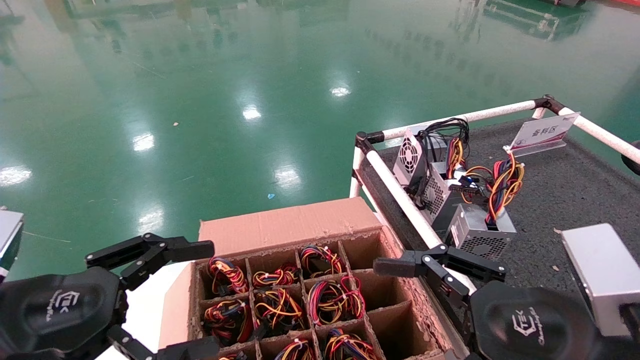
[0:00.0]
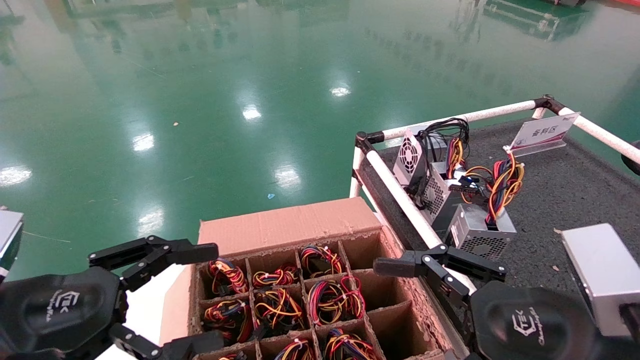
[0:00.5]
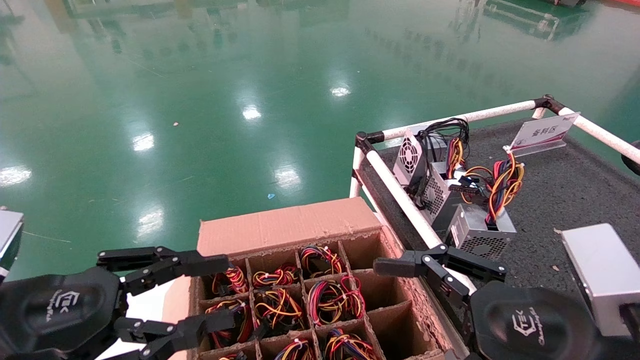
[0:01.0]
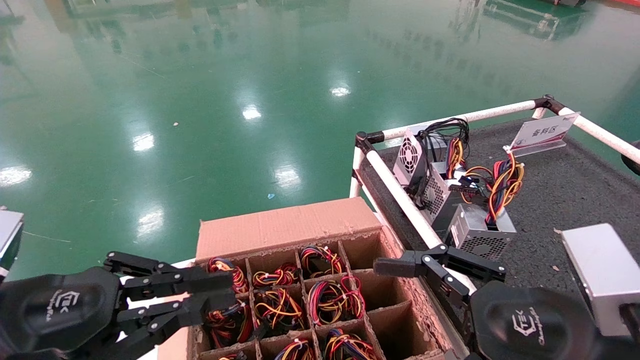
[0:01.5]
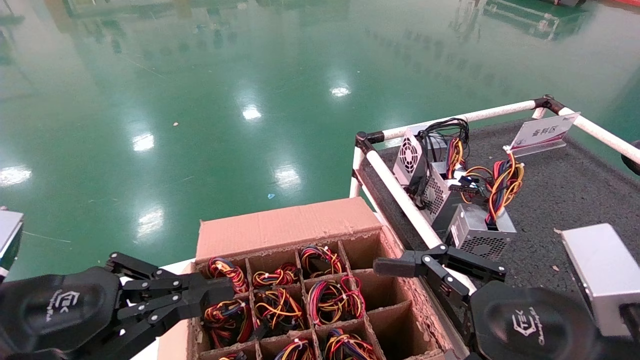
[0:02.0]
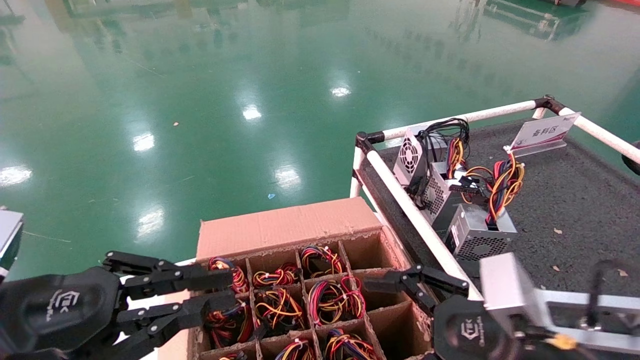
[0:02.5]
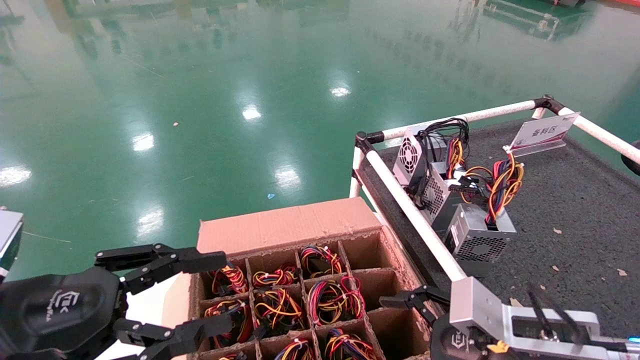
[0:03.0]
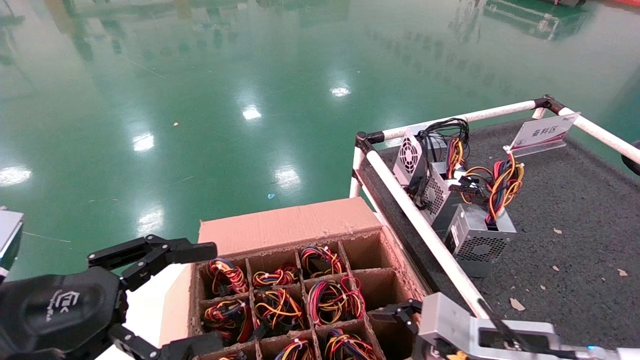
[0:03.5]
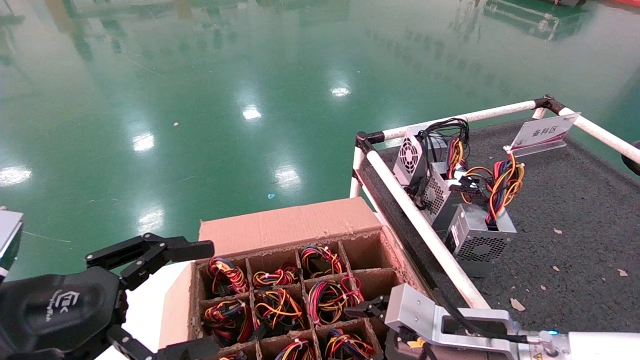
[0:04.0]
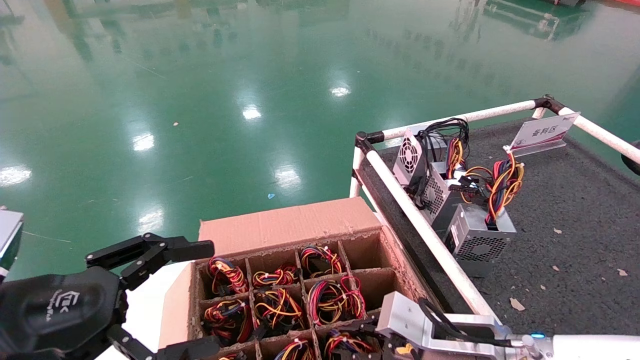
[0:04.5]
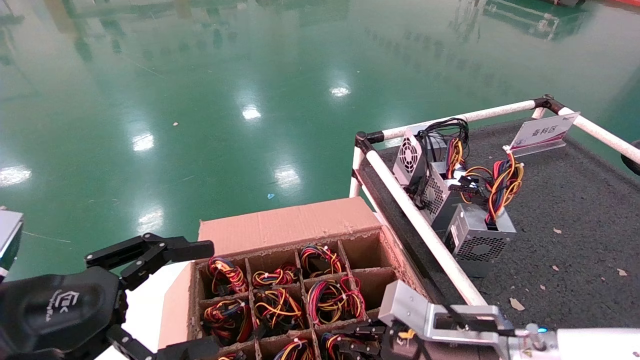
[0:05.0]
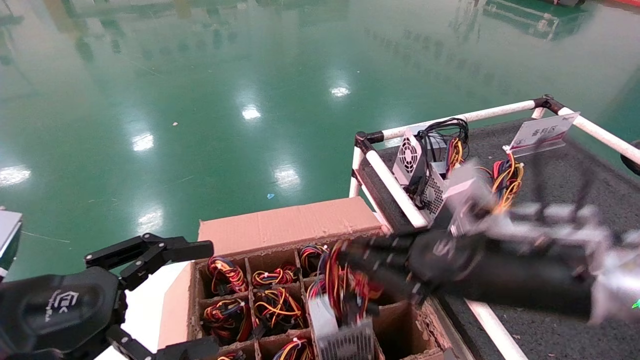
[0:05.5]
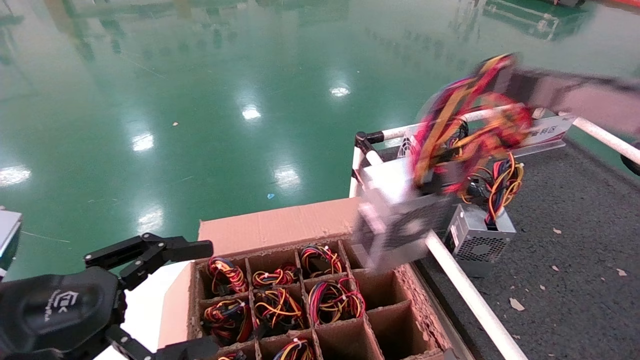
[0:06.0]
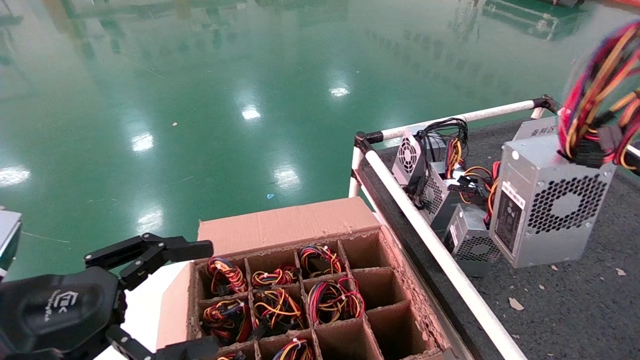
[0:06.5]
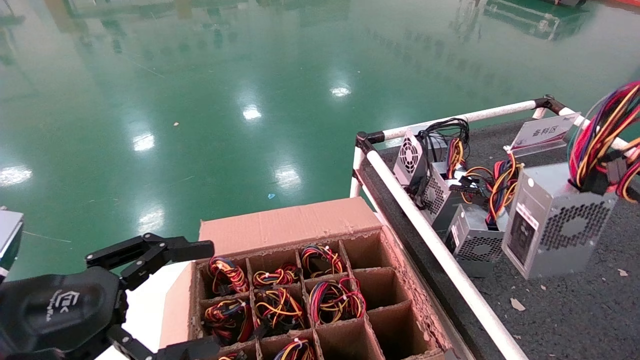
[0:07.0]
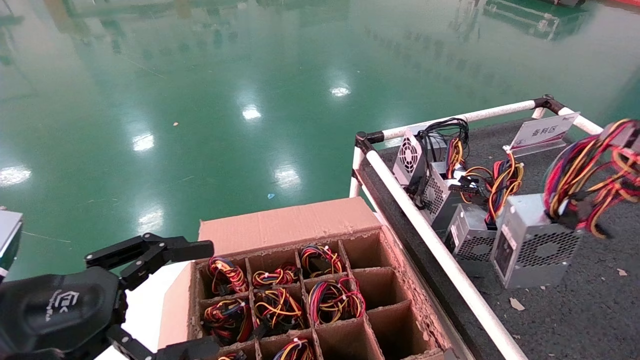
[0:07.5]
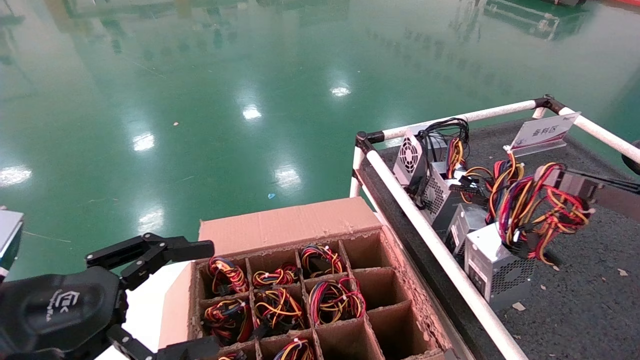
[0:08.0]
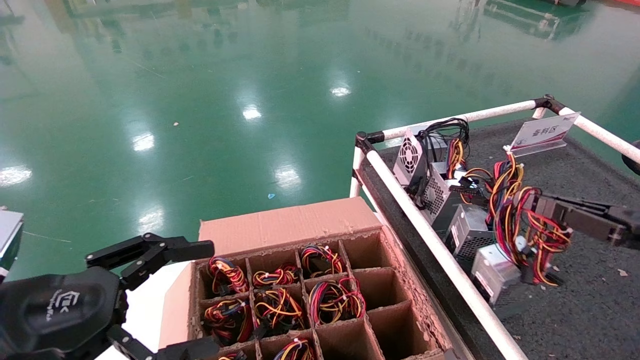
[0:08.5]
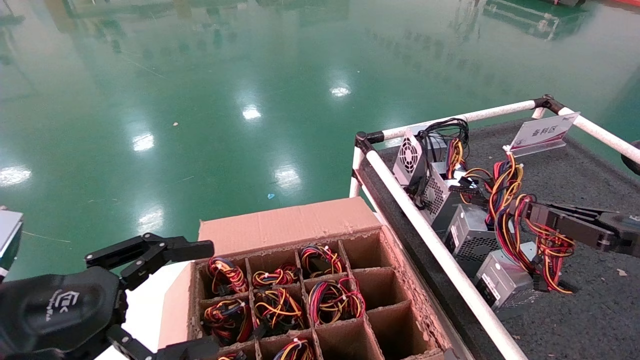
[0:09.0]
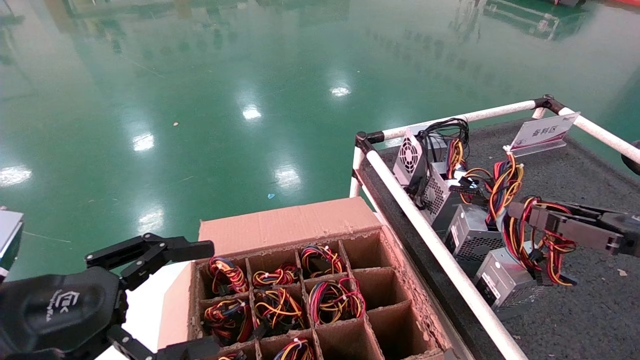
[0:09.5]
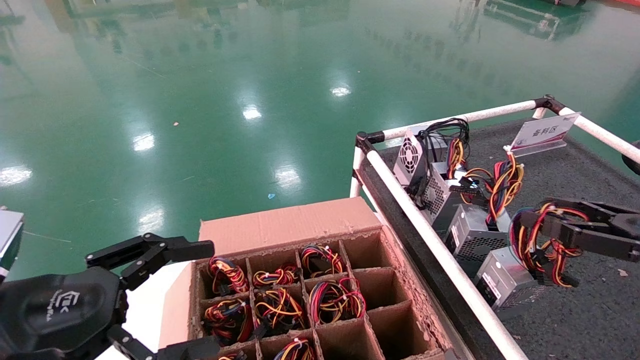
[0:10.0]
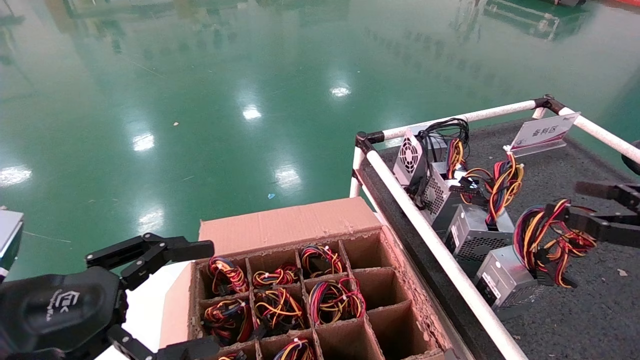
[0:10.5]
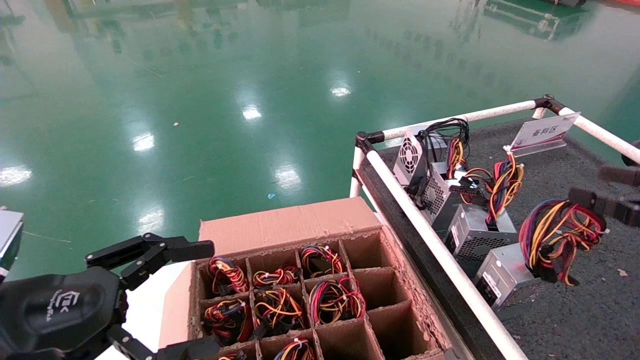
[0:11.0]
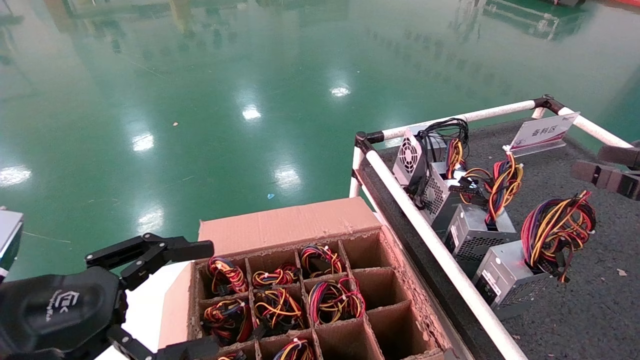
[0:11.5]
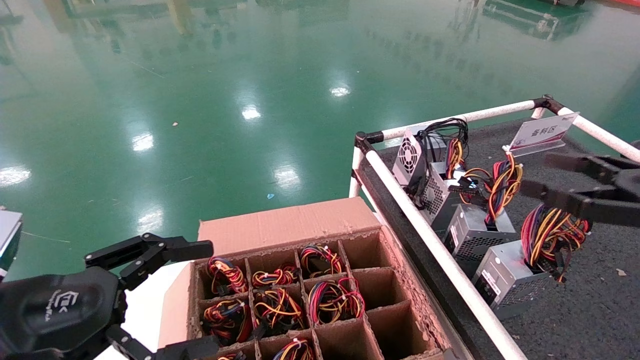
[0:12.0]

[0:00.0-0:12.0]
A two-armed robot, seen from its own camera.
Step, 0:03.0 to 0:04.5: Grab and lift the power supply from the large box.
Step, 0:05.0 to 0:09.5: Place the power supply on the operating table.
0:00.0 to 0:02.0: The left gripper closes.
0:02.0 to 0:04.0: The left gripper opens up. Meanwhile the right gripper shifts roughly 15 cm forward and downward.
0:04.0 to 0:06.0: The right gripper goes approximately 30 cm upward, to the right and backward, and closes its fingers.
0:06.0 to 0:08.0: The right gripper moves to the right and downward, about 15 cm.
0:08.0 to 0:10.0: The right gripper opens its fingers.
0:10.0 to 0:12.0: The right gripper ends up some 5 cm from where it was, and opens its fingers.

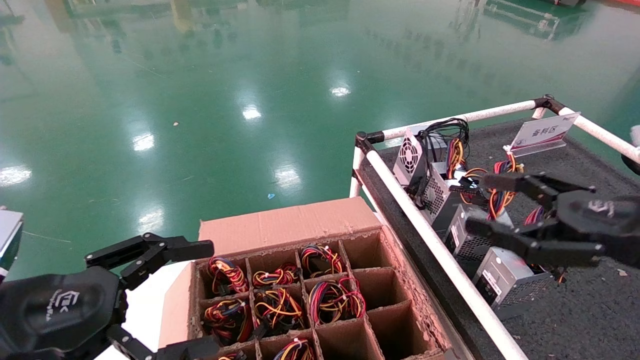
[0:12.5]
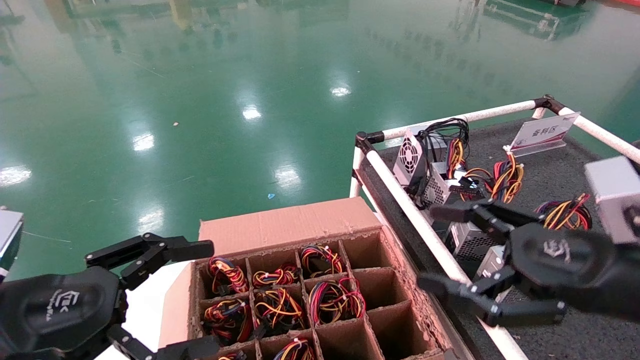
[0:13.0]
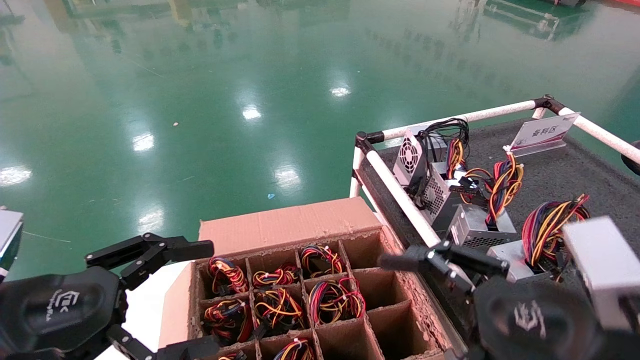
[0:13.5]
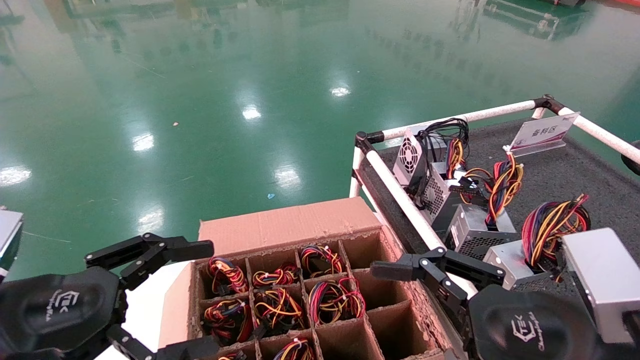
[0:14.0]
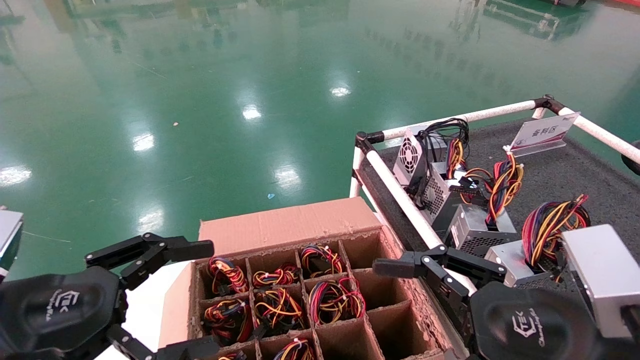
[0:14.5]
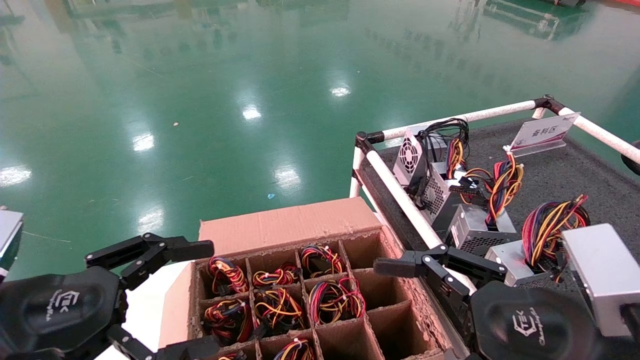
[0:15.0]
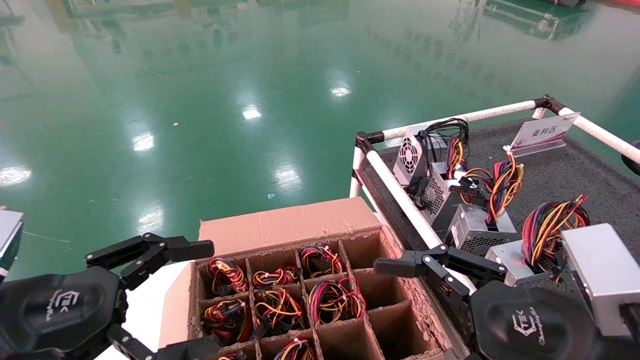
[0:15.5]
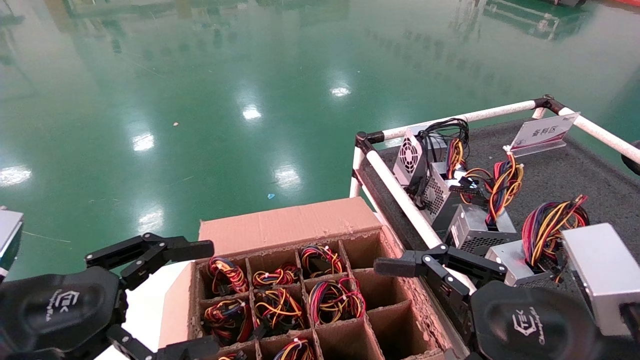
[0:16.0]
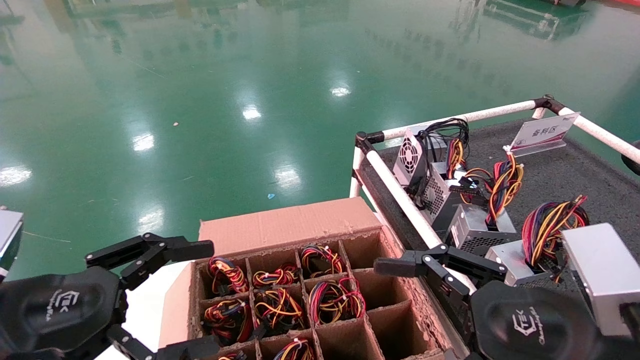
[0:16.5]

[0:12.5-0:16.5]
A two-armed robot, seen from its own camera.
0:12.5 to 0:14.5: The right gripper goes about 15 cm to the left, backward and downward.
0:14.5 to 0:16.5: The two grippers keep their place.

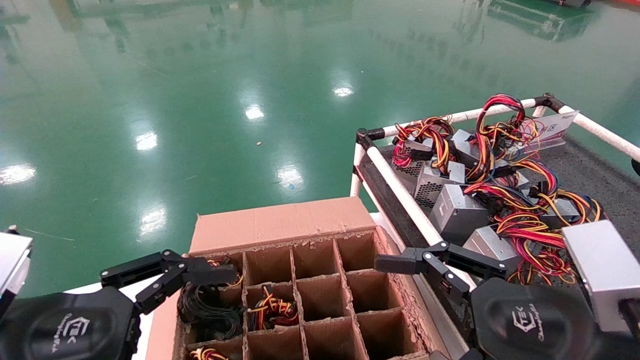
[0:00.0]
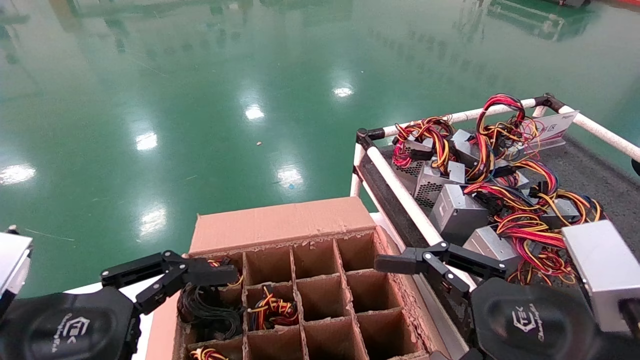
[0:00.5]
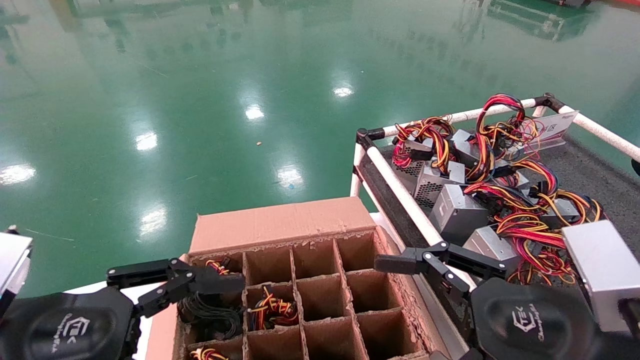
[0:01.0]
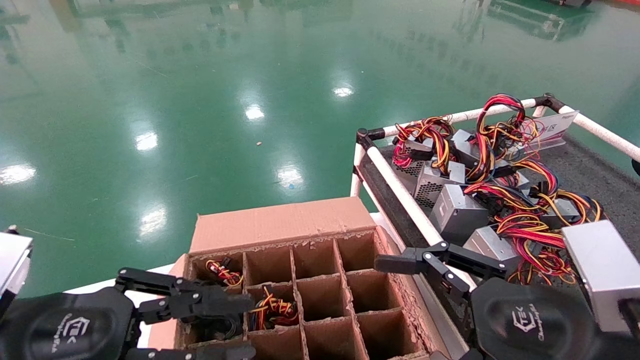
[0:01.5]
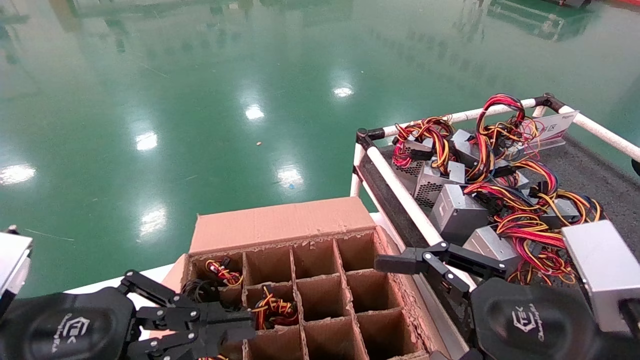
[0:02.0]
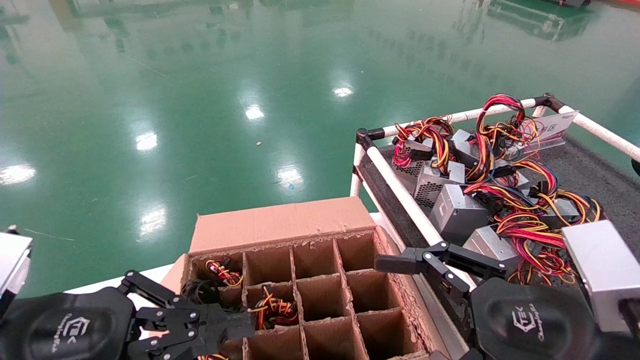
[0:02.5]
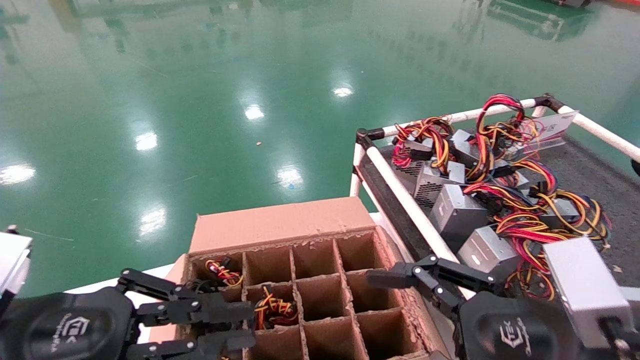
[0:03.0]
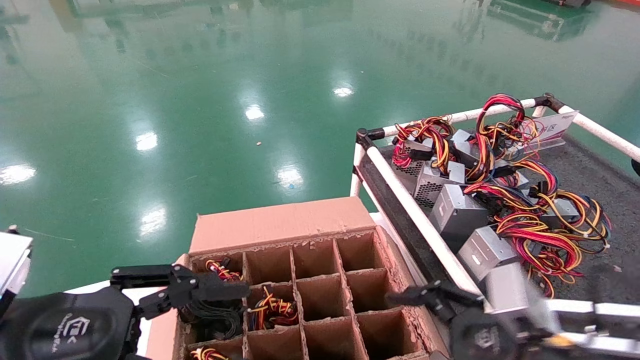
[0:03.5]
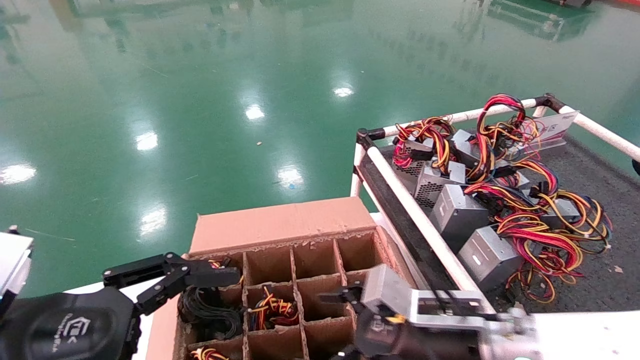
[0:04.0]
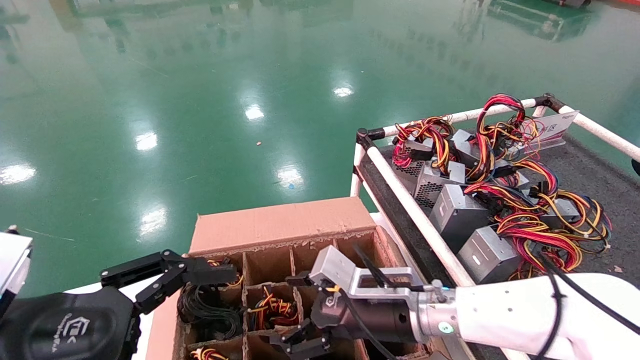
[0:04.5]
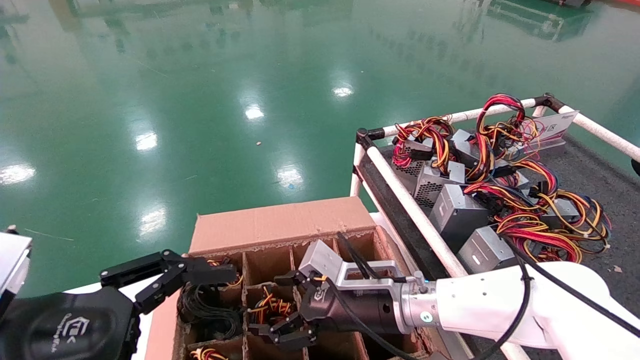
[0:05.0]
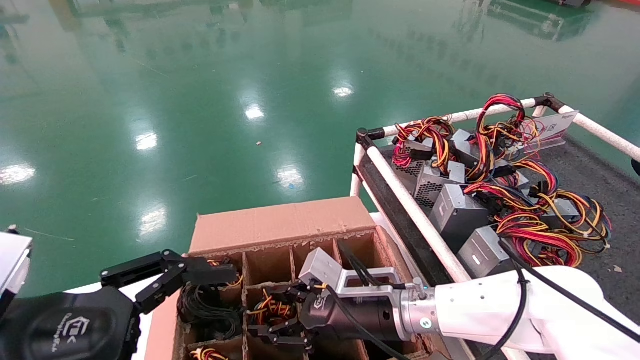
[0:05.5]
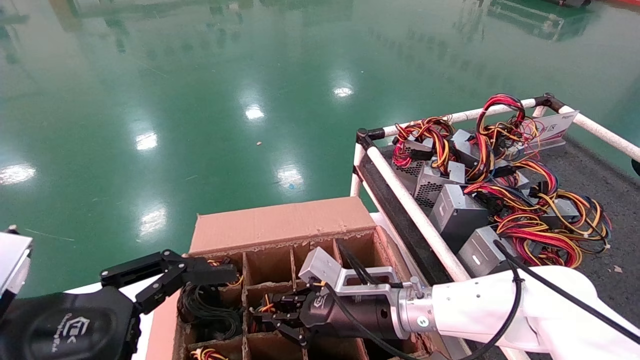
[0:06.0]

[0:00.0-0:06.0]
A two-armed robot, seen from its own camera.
0:00.0 to 0:02.0: The left gripper closes up.
0:02.0 to 0:04.0: The right gripper moves forward, downward and to the left, approximately 15 cm; the left gripper opens up.
0:04.0 to 0:06.0: The right gripper goes about 10 cm forward and to the left, and closes.
